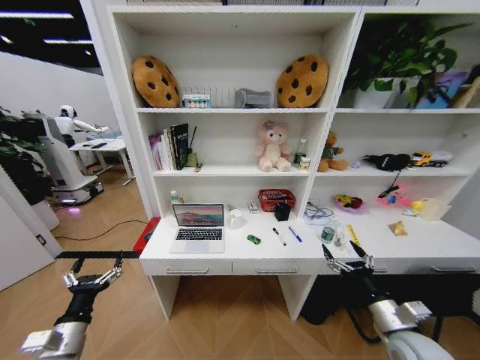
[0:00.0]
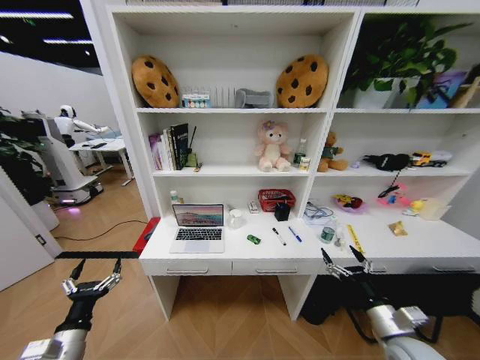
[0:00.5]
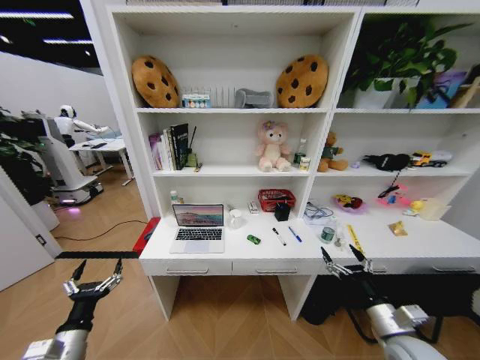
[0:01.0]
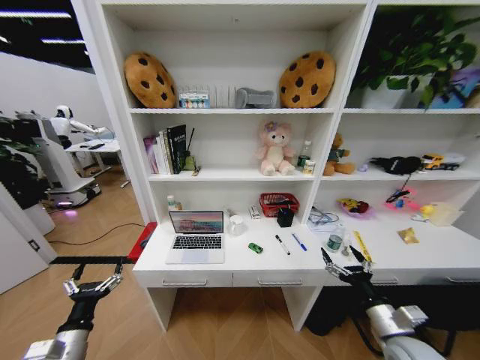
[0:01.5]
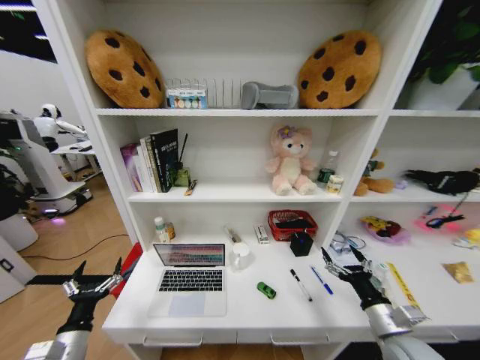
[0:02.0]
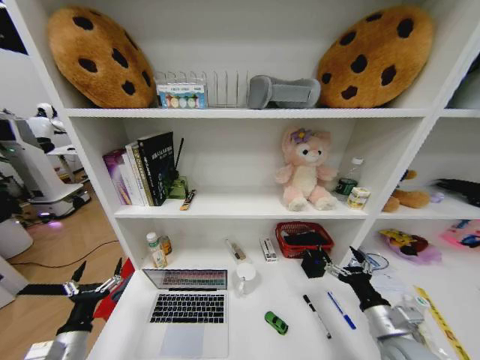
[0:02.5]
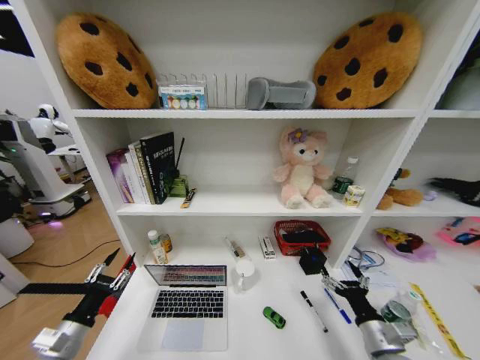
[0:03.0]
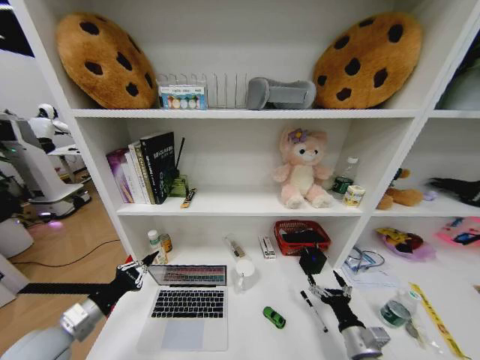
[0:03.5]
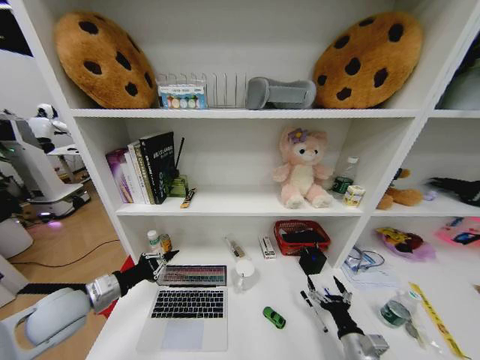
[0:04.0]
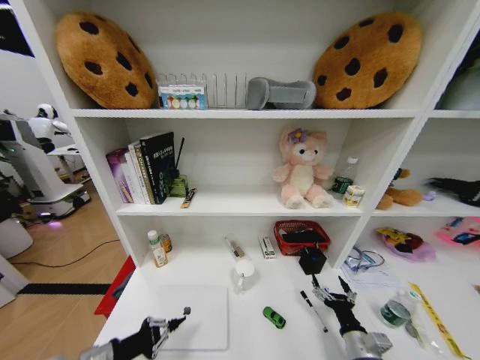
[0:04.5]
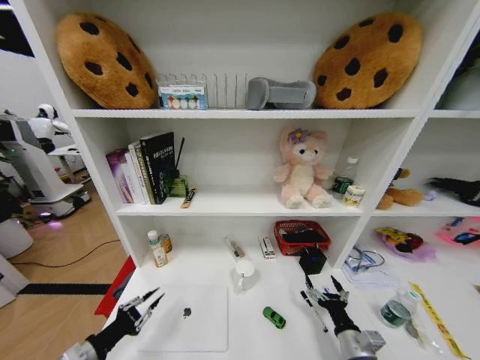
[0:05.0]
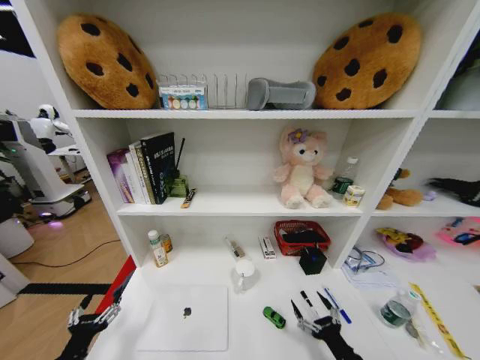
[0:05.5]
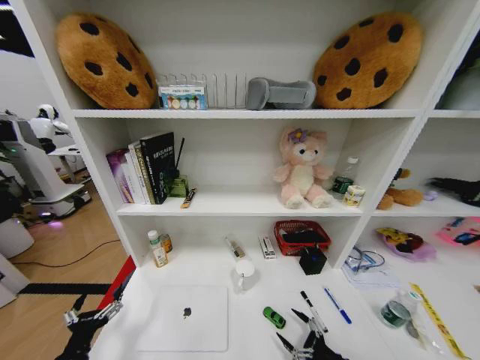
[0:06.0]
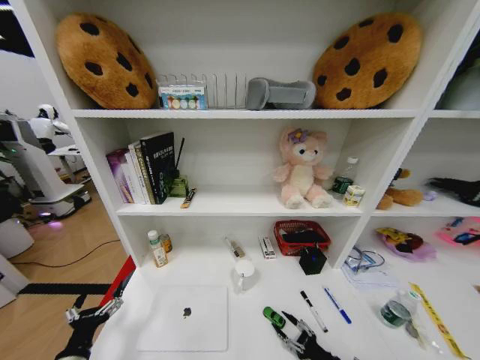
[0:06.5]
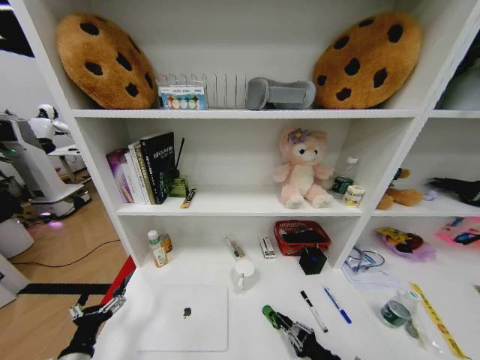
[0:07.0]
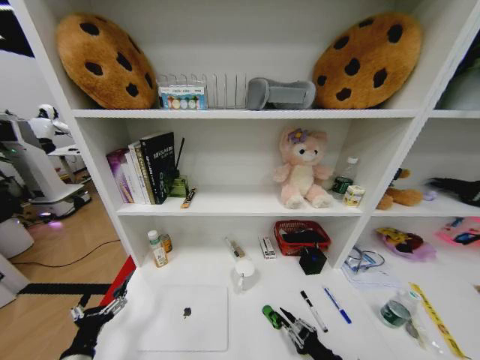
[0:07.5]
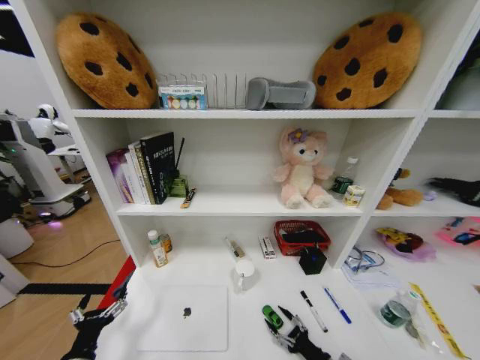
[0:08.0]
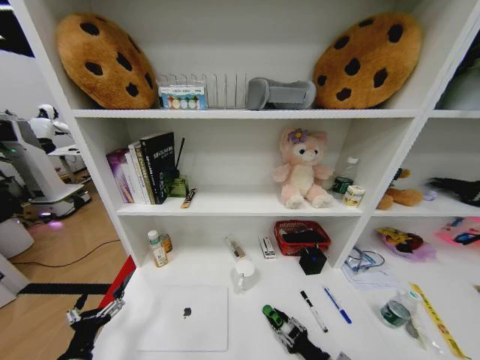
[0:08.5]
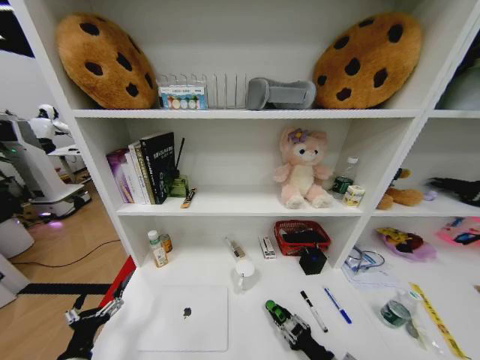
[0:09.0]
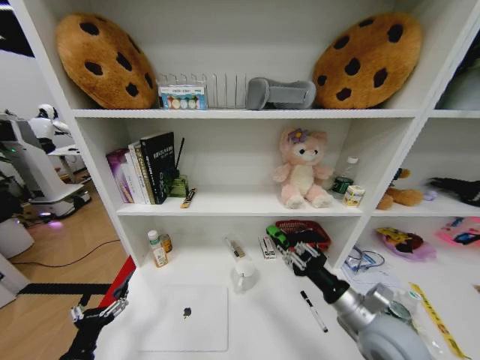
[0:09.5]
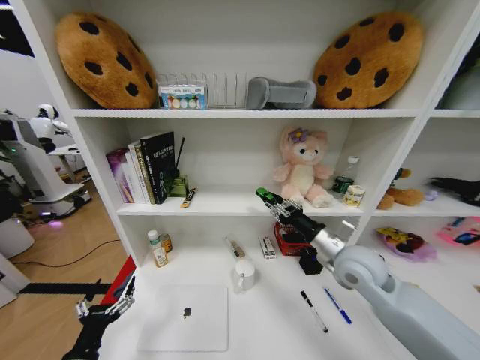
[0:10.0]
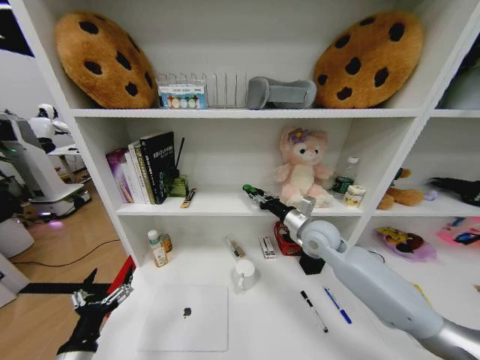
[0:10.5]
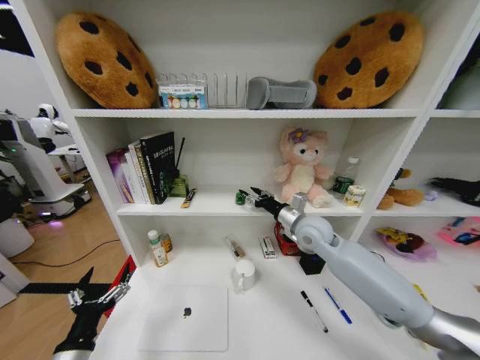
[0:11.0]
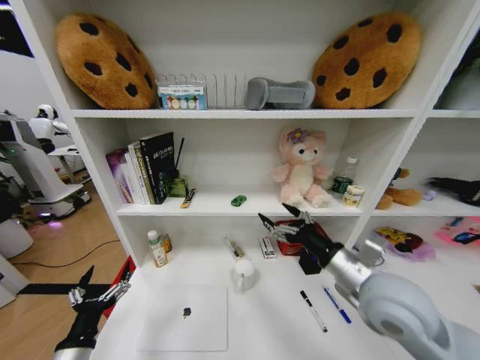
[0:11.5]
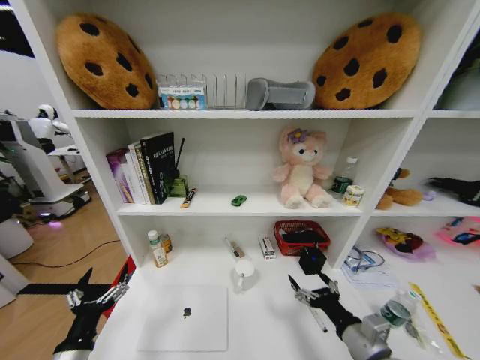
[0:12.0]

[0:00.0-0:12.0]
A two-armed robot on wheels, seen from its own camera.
Task of the whole recording: Organize the objects on the table.
0:02.0 to 0:04.0: The left gripper goes about 15 cm upward and forward, and closes up, while the right gripper moves downward, roughly 10 cm.
0:04.0 to 0:06.0: The right gripper moves about 5 cm. Meanwhile the left gripper travels backward and downward by roughly 20 cm, and opens.
0:06.0 to 0:08.0: The right gripper shifts about 5 cm to the left, and closes, then reopens.
0:08.0 to 0:10.0: The right gripper travels upward and forward by roughly 35 cm.
0:10.0 to 0:12.0: The right gripper is displaced backward and downward by roughly 20 cm, and opens.

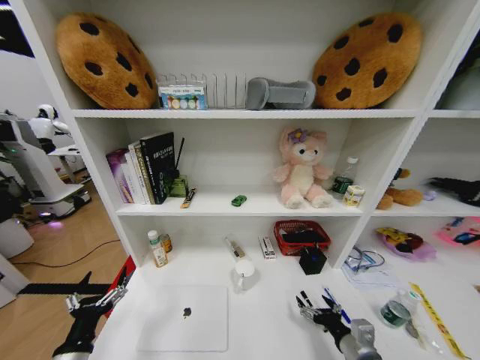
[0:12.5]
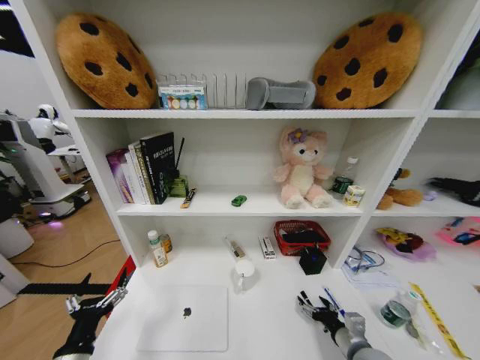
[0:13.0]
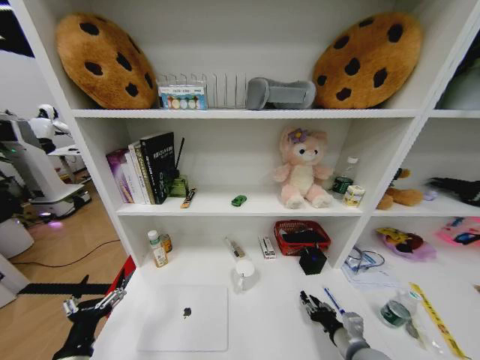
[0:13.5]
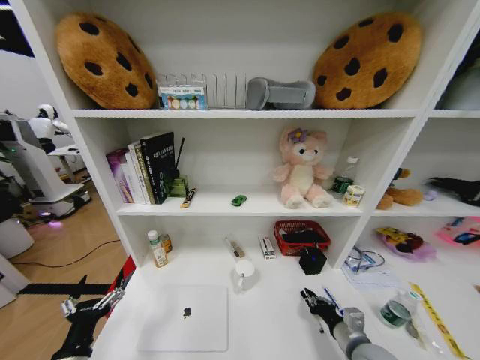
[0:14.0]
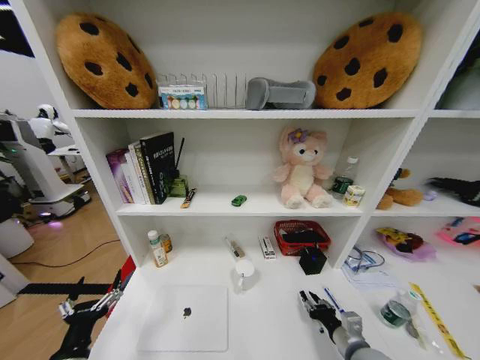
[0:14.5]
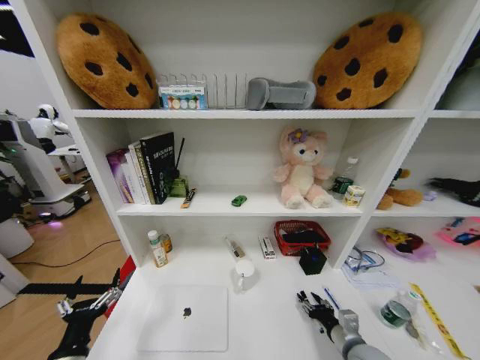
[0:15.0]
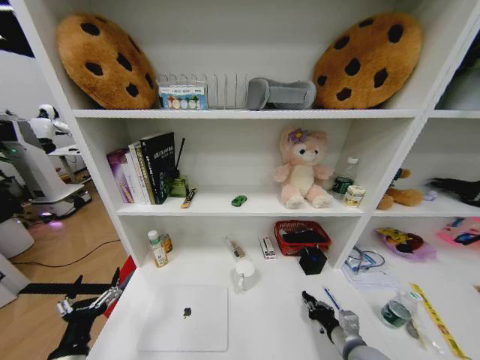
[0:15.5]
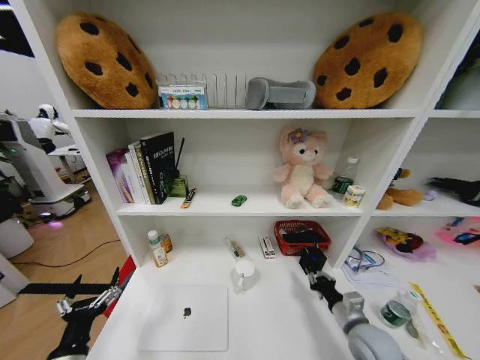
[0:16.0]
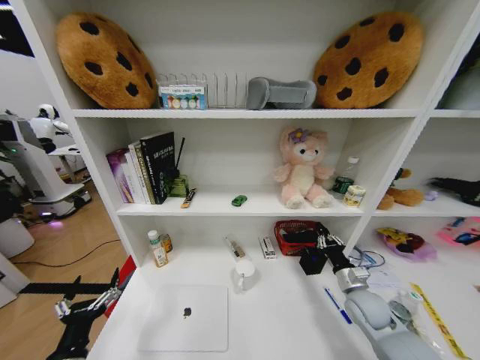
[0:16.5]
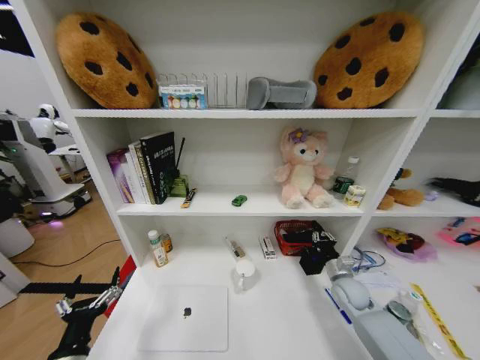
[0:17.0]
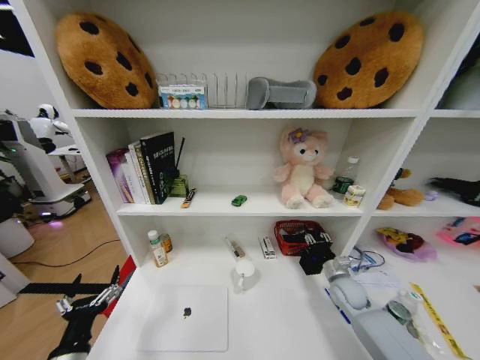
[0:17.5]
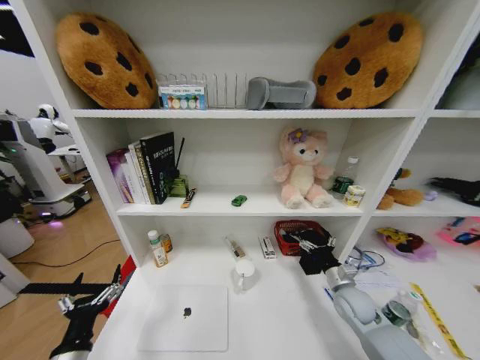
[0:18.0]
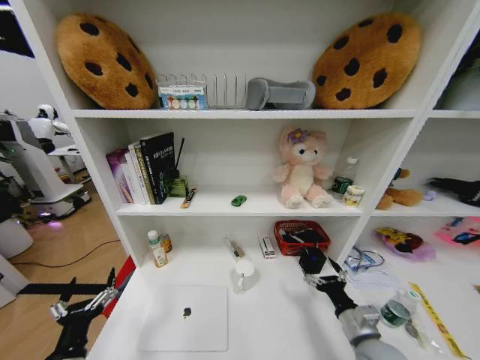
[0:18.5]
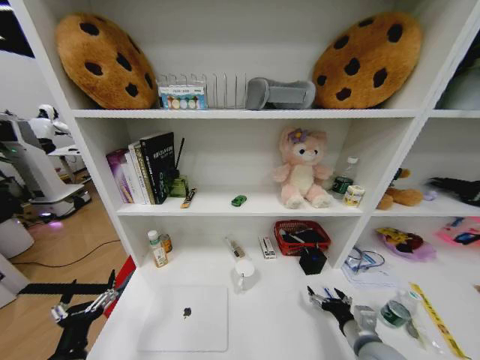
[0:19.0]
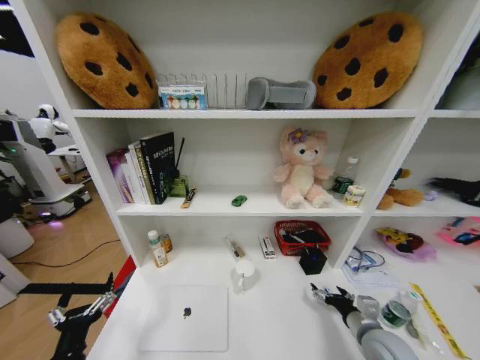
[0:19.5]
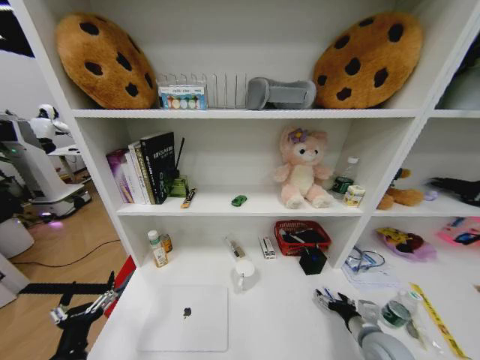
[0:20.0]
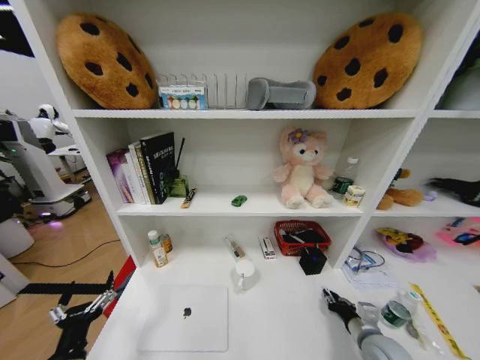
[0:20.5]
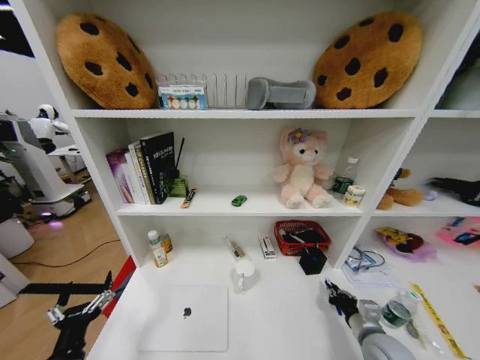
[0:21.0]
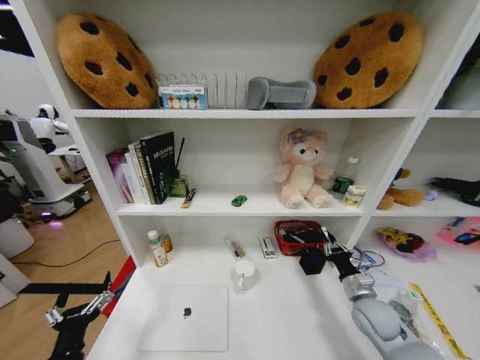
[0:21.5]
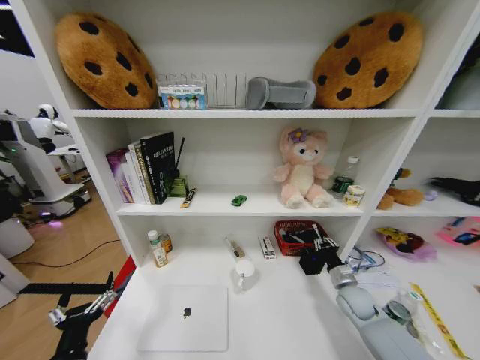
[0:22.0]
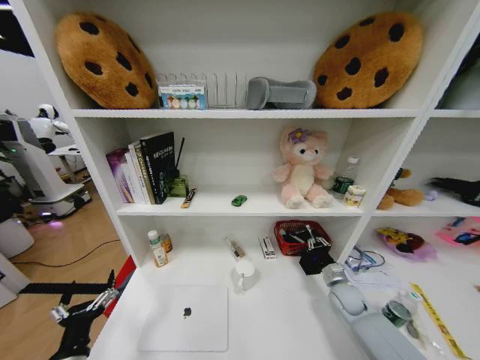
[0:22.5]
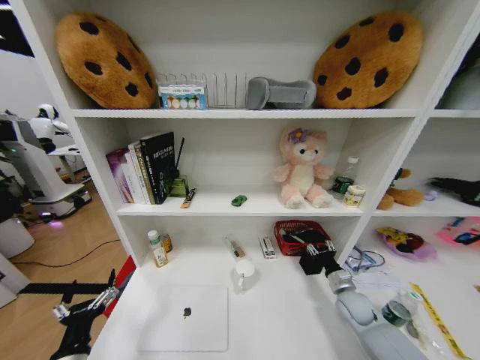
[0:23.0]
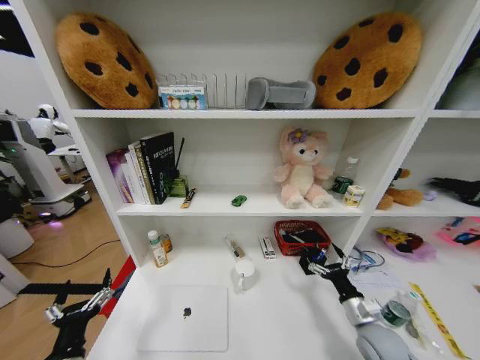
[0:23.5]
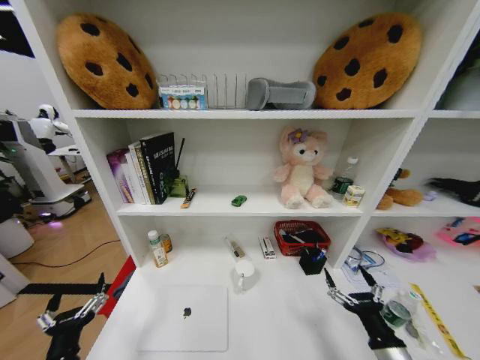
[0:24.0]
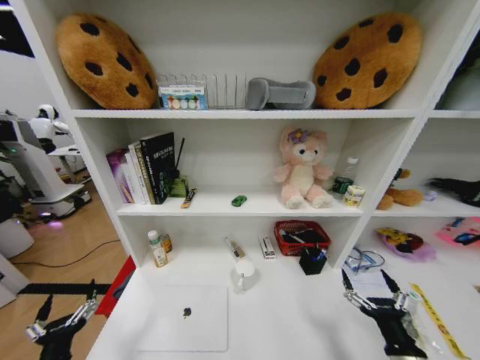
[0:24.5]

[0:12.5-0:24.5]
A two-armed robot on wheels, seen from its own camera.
Task of the whole recording: Organize the objects on the table.
0:12.5 to 0:14.5: The right gripper closes its fingers.
0:14.5 to 0:16.5: The right gripper travels forward and to the right by about 15 cm, and opens and closes again.
0:16.5 to 0:18.5: The right gripper moves backward and to the left, about 15 cm, and opens up.
0:18.5 to 0:20.5: The right gripper shifts approximately 5 cm to the right, and closes its fingers.
0:20.5 to 0:22.5: The right gripper is displaced forward by some 15 cm.
0:22.5 to 0:24.5: The right gripper goes about 25 cm backward, and opens up.

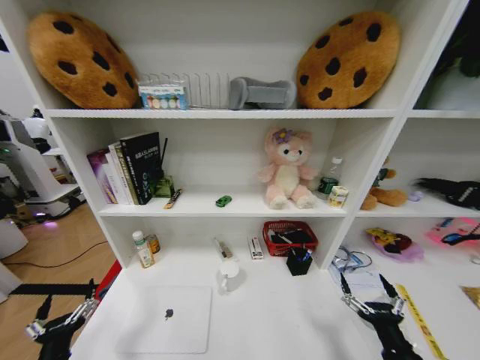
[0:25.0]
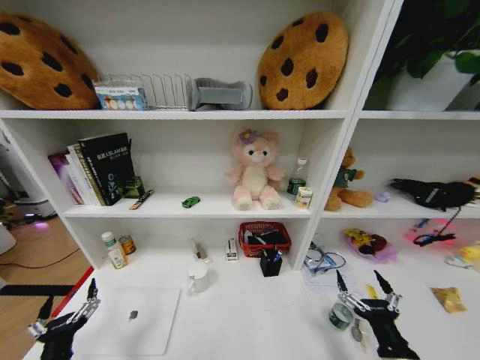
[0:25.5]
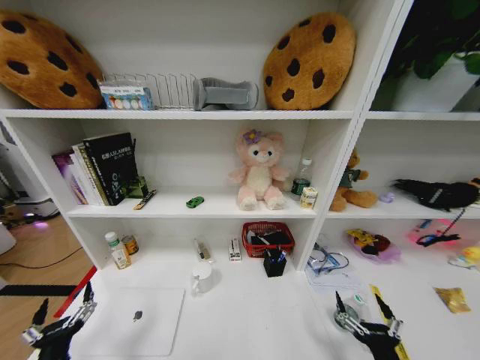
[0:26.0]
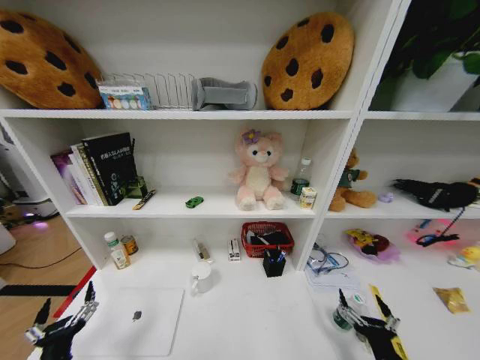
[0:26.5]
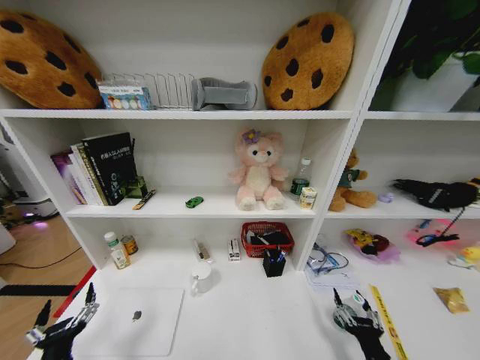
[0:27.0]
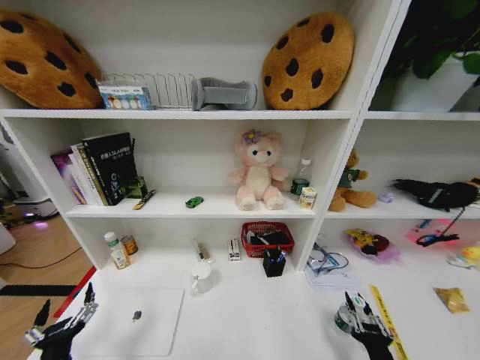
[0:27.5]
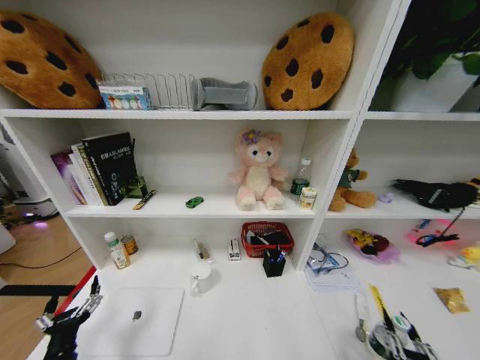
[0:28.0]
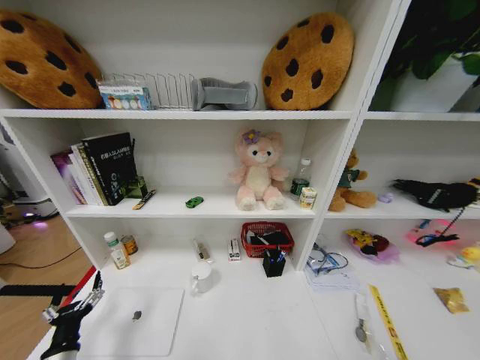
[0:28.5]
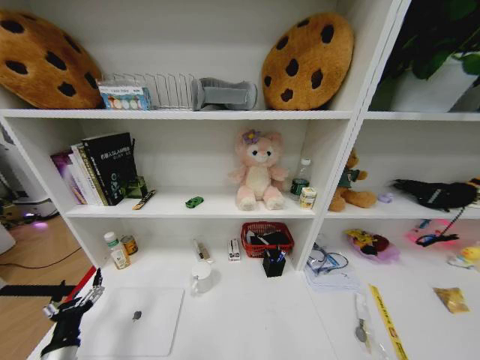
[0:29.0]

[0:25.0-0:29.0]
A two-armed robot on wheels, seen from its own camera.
Task of the whole recording: Organize the objects on the table.
0:25.0 to 0:27.0: The right gripper heads downward, covering about 5 cm.
0:27.0 to 0:29.0: The right gripper is displaced backward by roughly 20 cm, and closes its fingers; the left gripper ends up approximately 5 cm from where it was.
